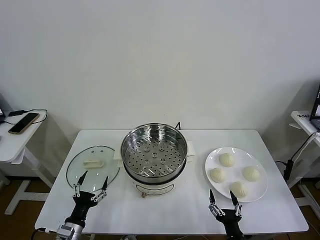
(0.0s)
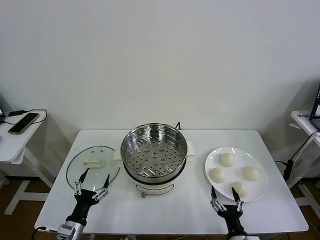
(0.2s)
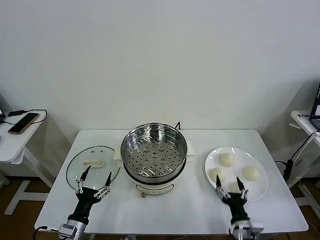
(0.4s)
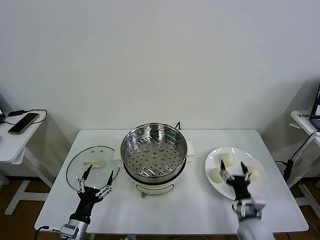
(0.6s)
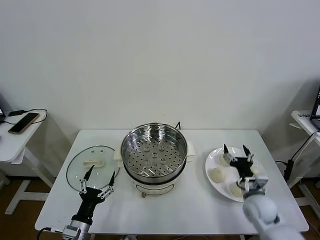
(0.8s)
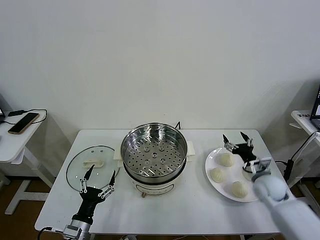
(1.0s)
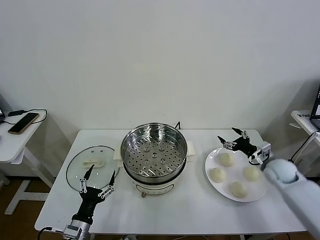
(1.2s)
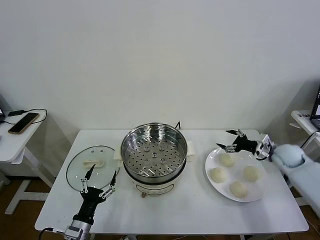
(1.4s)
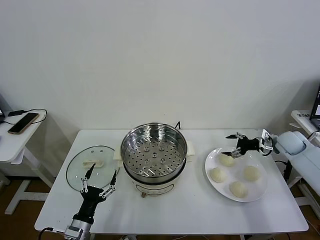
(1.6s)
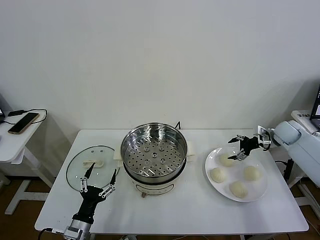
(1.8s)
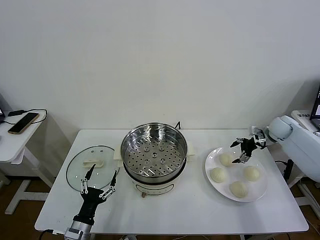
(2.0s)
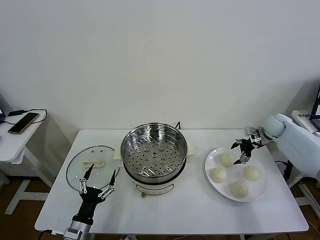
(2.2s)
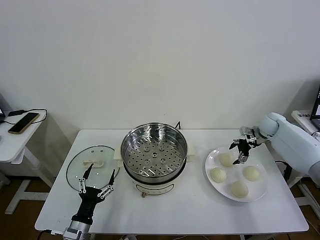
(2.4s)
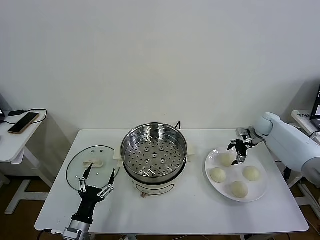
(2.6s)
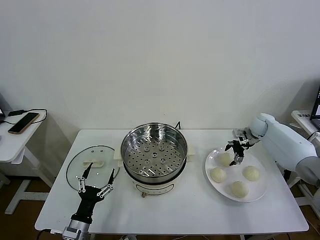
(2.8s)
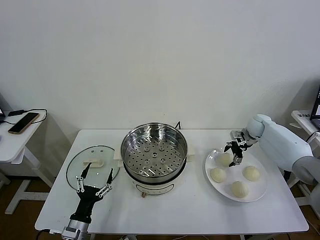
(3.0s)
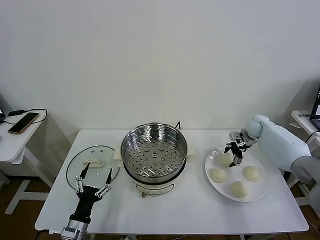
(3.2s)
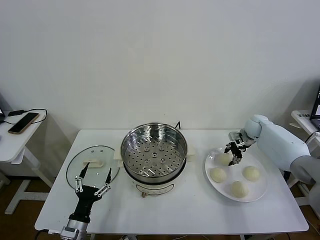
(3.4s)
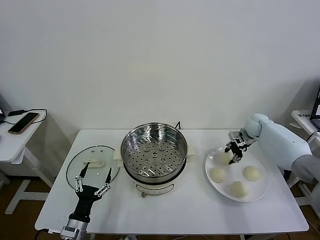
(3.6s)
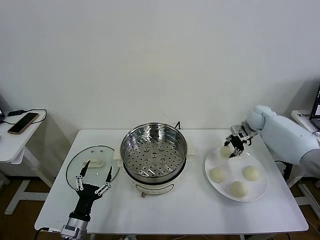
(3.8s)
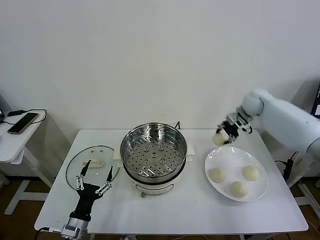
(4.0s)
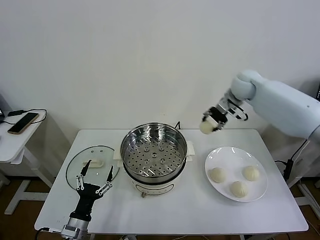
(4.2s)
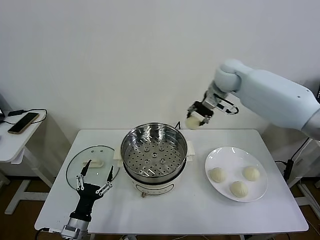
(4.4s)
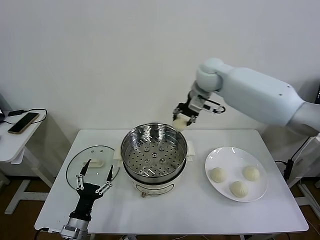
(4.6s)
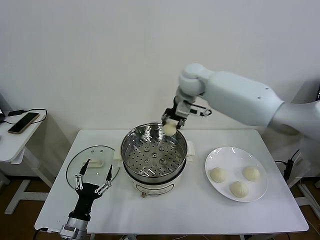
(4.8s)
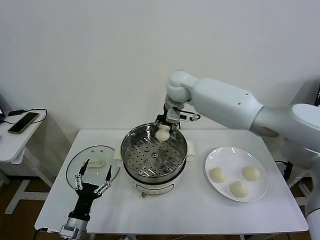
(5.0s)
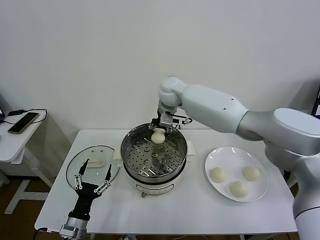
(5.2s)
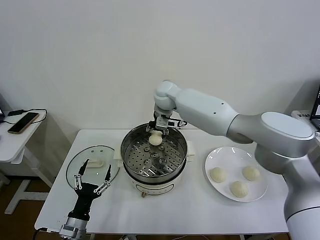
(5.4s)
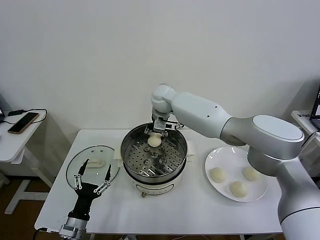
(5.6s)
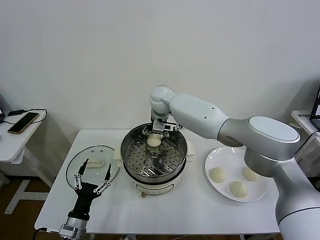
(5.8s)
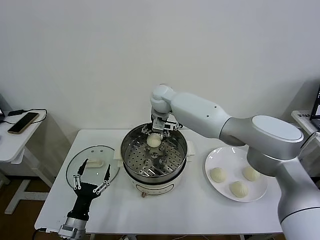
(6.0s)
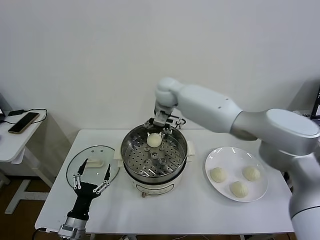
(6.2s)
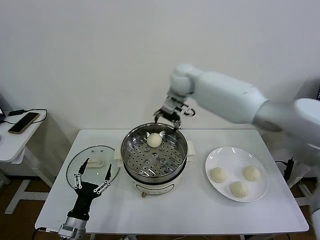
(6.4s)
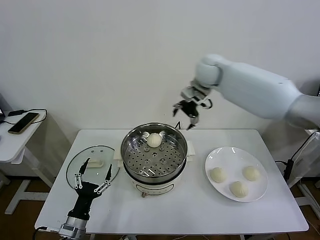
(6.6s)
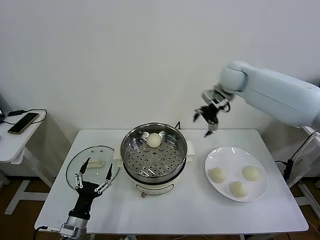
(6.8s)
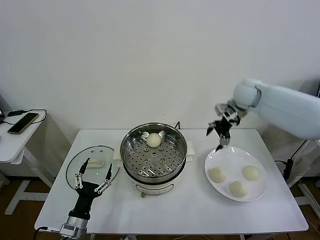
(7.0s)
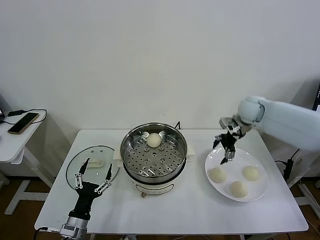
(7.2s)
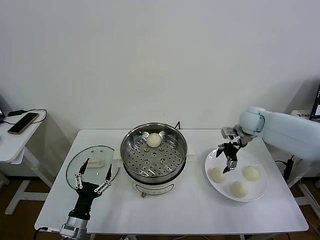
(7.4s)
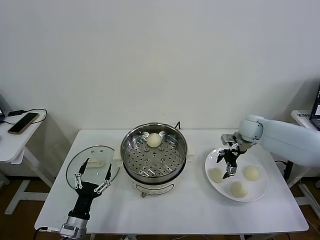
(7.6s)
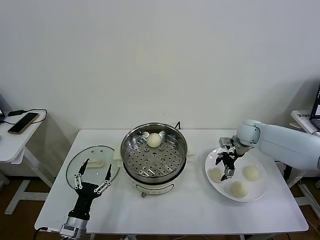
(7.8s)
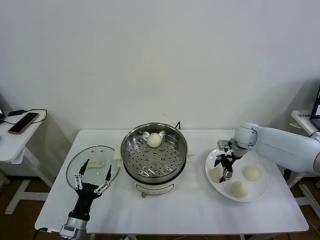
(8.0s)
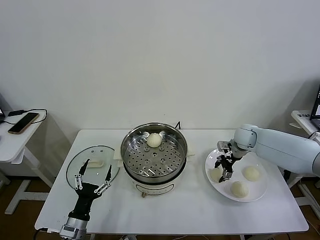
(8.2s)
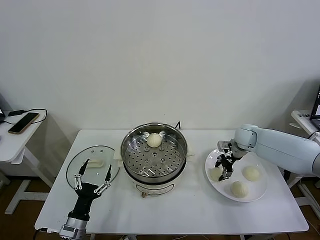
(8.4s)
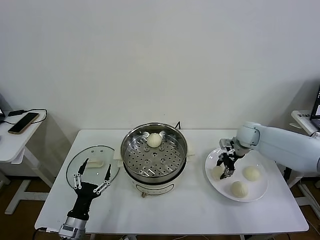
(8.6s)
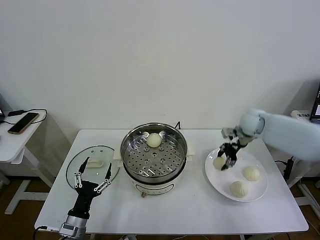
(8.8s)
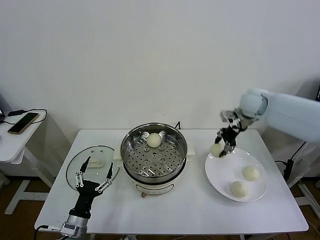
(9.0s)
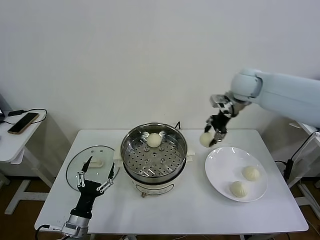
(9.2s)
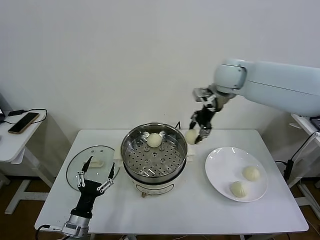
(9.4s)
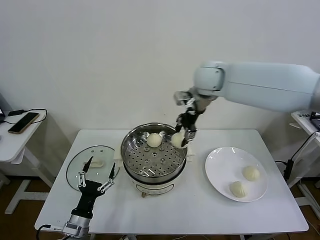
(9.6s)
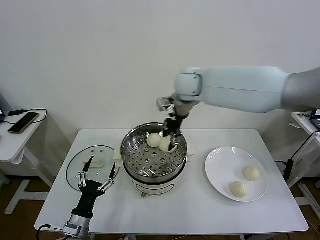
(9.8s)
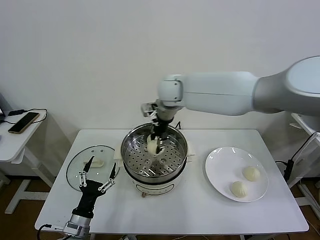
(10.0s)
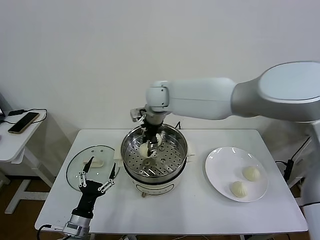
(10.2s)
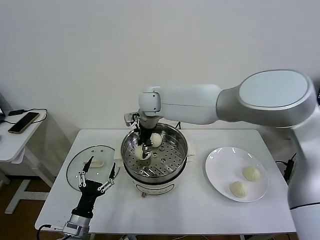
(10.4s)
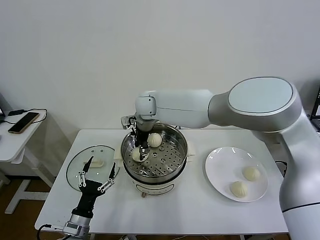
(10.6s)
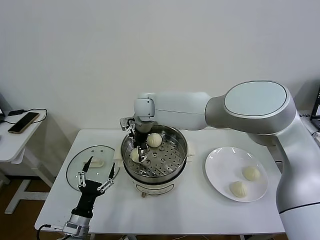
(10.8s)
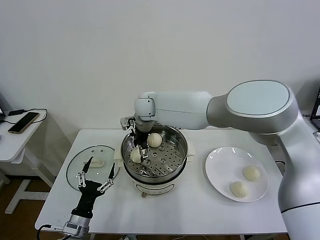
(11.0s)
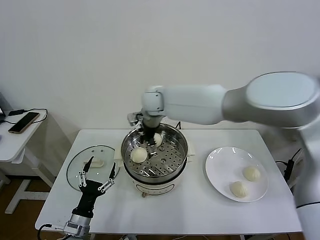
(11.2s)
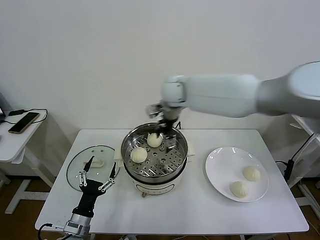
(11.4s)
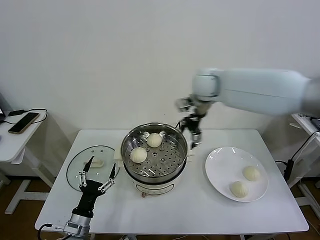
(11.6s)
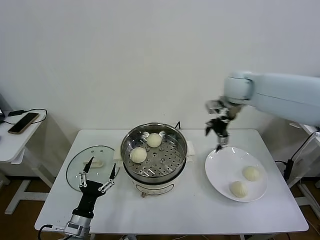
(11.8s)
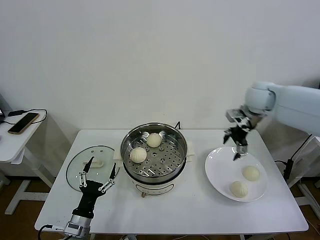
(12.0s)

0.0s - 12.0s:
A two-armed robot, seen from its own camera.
Task of the whole recording: take steamed baozi put them in steamer then cover it.
Step, 0.0s - 3.4s: Grasp the baozi in the plate with right gripper.
Step, 3.6s - 5.8s: Place the baozi on the steamer with right gripper.
Step, 6.0s - 8.4s: Grasp the baozi in the plate with right gripper.
Step, 8.6s - 10.8s: Place the baozi on the steamer with right gripper.
1.6s - 3.0s: The right gripper shifts some 10 cm forward and to the left.
3.0s - 4.4s: The right gripper moves upward and to the left, about 35 cm, and closes its fingers.
4.4s - 6.0s: The right gripper heads to the left and downward, covering about 20 cm, and opens its fingers.
6.0s - 7.6s: The right gripper is displaced to the right by roughly 35 cm.
7.6s - 9.0s: The right gripper moves upward, roughly 15 cm, and closes its fingers.
9.0s - 10.4s: The right gripper moves to the left, approximately 35 cm.
10.4s - 12.0s: The right gripper travels to the right by some 35 cm, and opens its fingers.

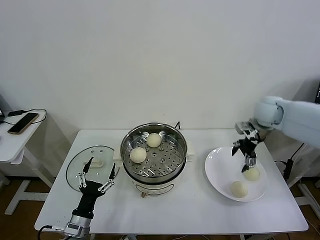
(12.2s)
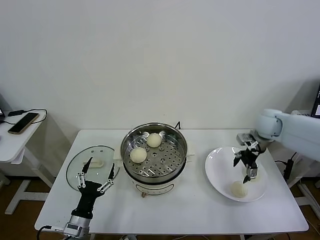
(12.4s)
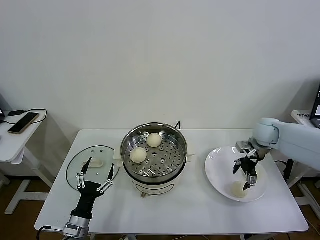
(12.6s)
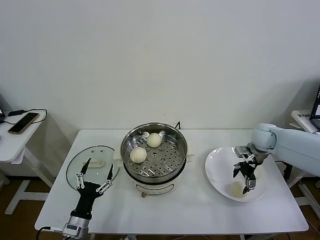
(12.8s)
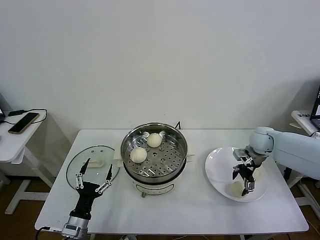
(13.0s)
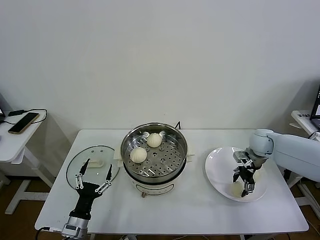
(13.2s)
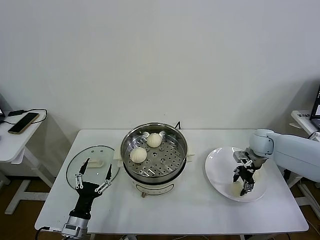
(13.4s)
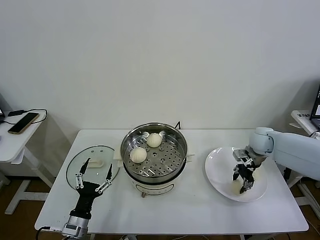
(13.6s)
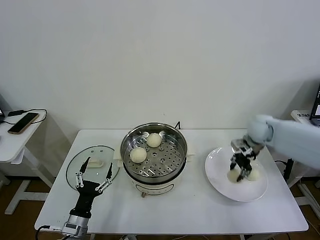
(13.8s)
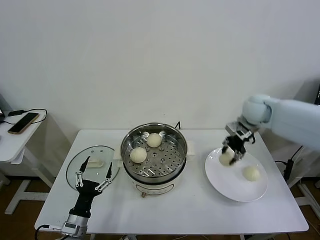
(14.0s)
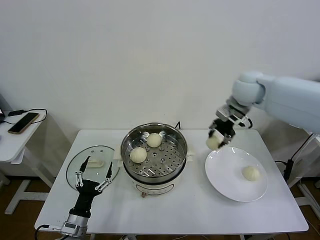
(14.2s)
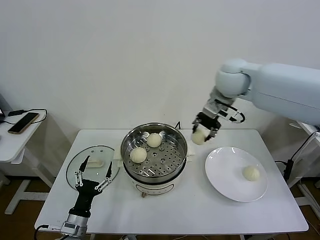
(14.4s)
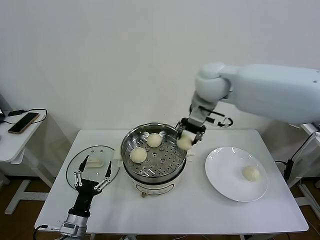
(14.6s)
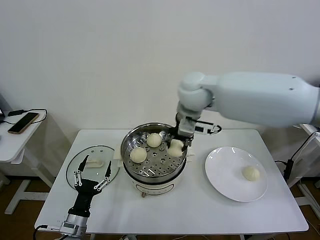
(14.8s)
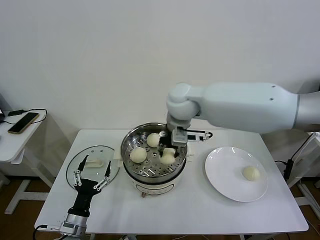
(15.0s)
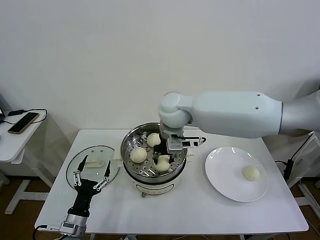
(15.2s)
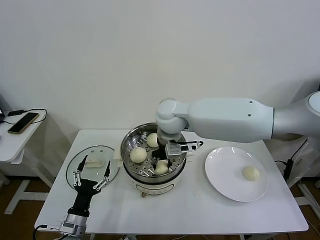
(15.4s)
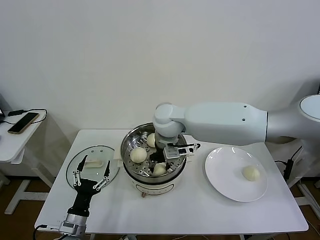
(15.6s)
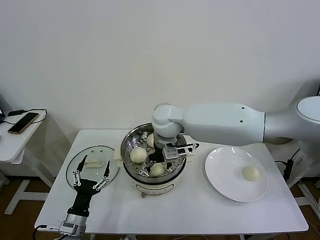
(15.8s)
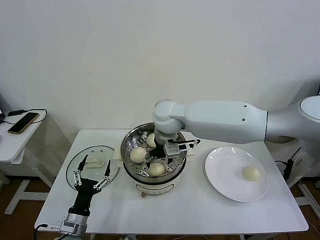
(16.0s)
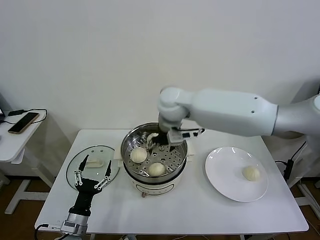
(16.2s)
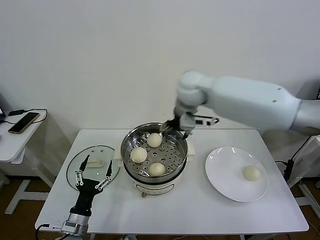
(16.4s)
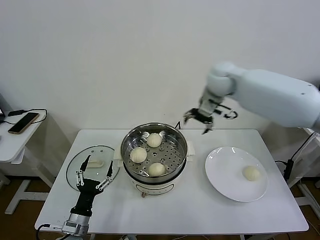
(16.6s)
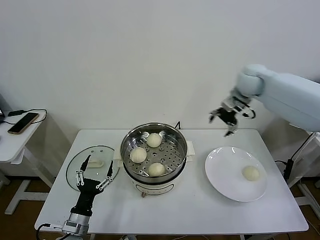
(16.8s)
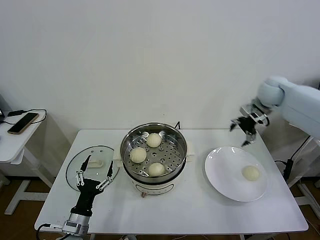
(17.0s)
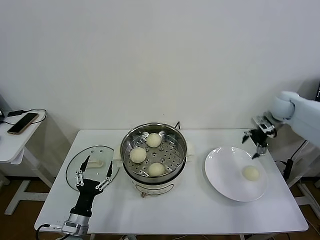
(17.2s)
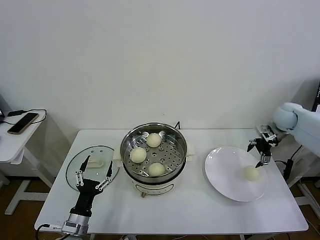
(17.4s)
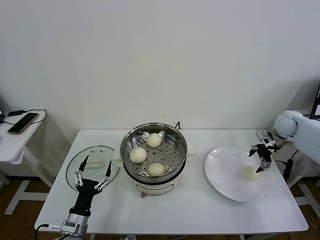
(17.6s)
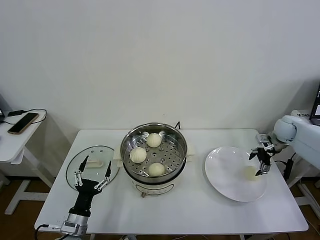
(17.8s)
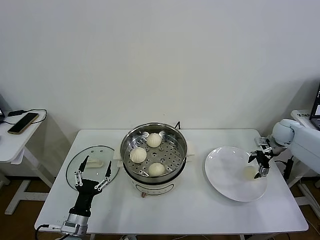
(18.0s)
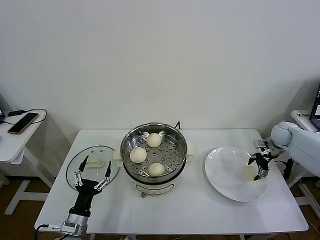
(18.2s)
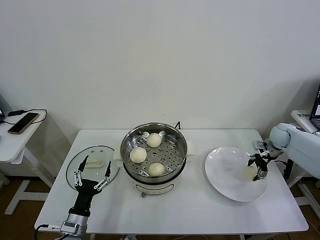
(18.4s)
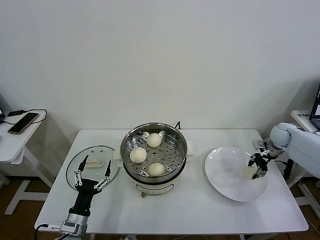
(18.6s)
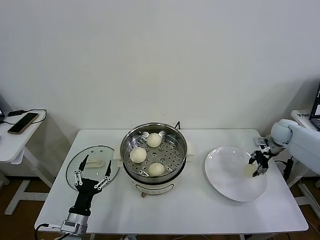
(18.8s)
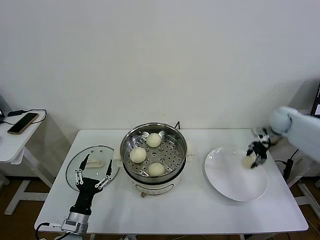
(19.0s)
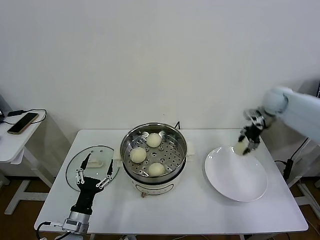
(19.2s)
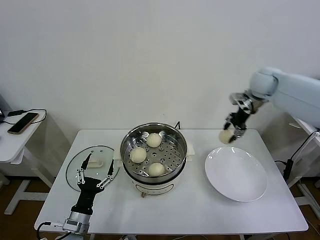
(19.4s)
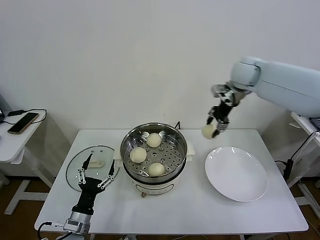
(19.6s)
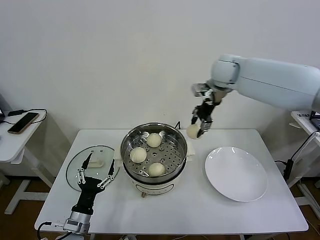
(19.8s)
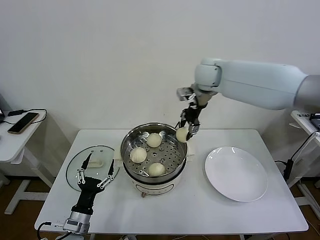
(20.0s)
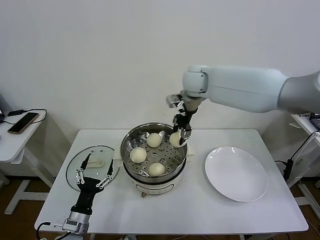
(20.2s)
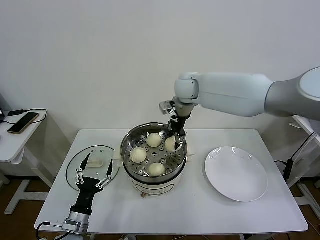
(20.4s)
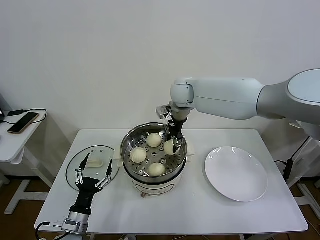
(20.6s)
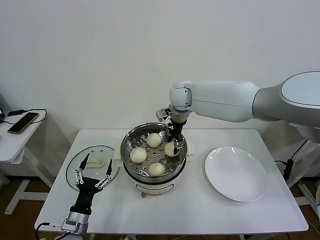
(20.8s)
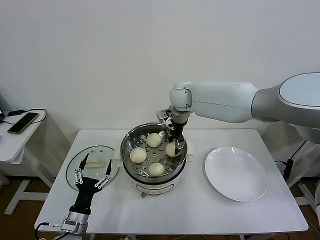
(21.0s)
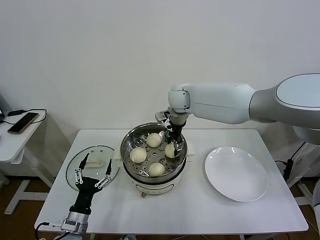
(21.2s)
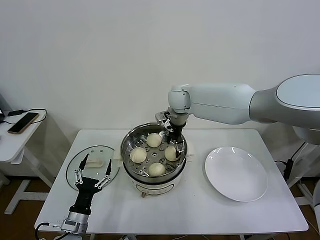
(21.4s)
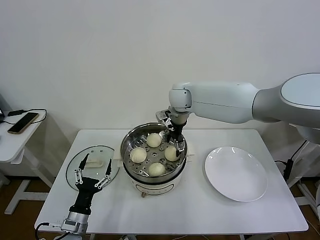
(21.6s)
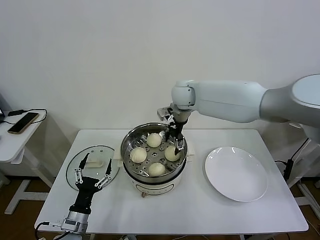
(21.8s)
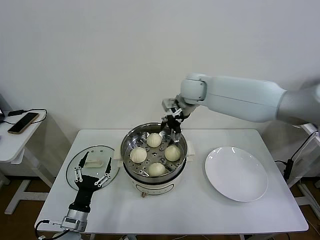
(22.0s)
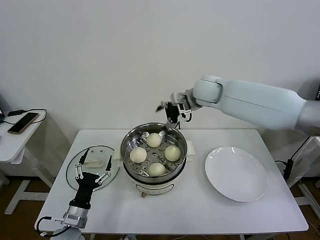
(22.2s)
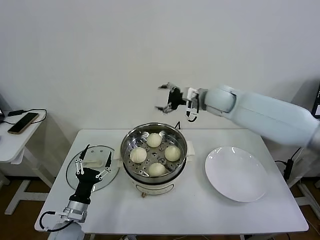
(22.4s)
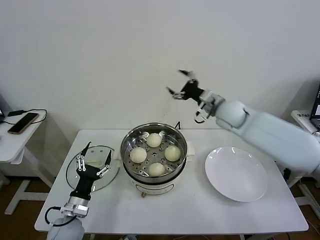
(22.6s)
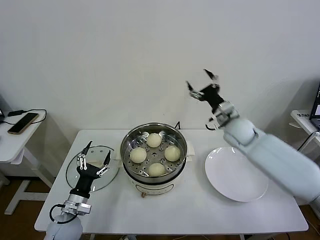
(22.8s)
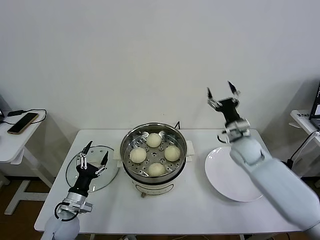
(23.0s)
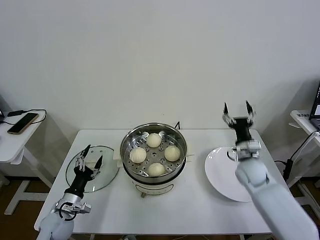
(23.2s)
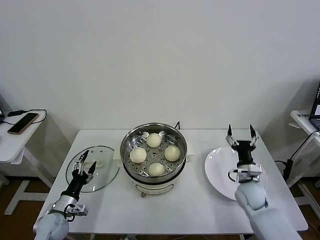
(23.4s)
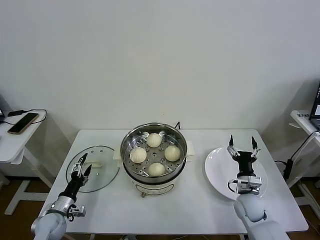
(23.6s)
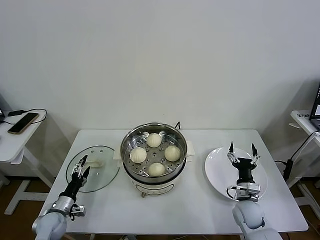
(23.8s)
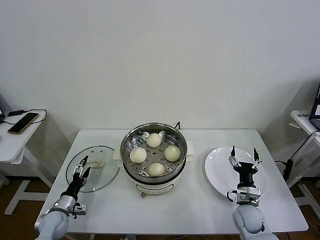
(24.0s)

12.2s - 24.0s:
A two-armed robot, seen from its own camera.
Task of the whole recording: take steamed baozi put them in steamer then cover it.
Step, 13.6s - 15.8s: Place the baozi on the steamer with right gripper.
Step, 16.0s - 18.6s: Grasp the baozi in the plate with right gripper.
Step, 18.8s - 21.2s: Place the baozi on the steamer with right gripper.
12.2s - 13.6s: The right gripper travels downward by about 10 cm, and closes.
13.6s - 15.2s: The right gripper goes about 35 cm to the left and upward.
15.2s - 16.6s: The right gripper shifts about 20 cm to the right and forward, and opens.
16.6s - 18.2s: The right gripper moves to the right and downward, approximately 35 cm.
18.2s - 19.6s: The right gripper travels upward and to the left by approximately 35 cm, and closes up.
19.6s - 21.0s: The right gripper shifts roughly 20 cm to the left and downward.
21.0s - 22.6s: The right gripper is displaced to the right and backward by roughly 15 cm, and opens.
22.6s - 24.0s: The right gripper heads downward and backward, covering about 35 cm. The left gripper moves to the left and downward, approximately 15 cm.
